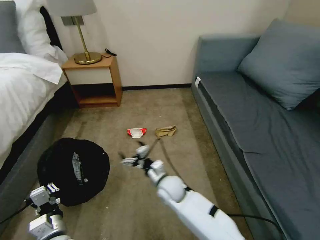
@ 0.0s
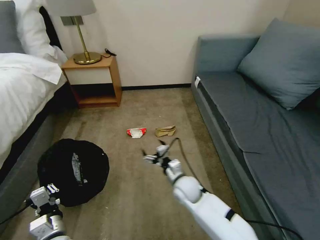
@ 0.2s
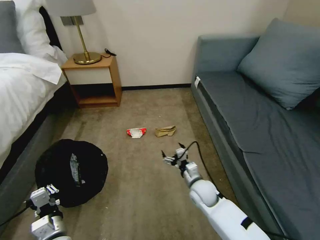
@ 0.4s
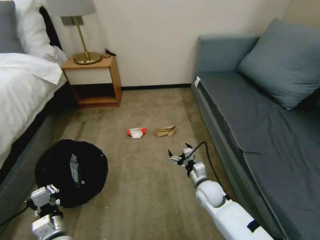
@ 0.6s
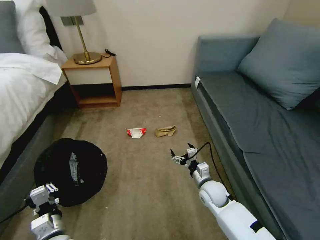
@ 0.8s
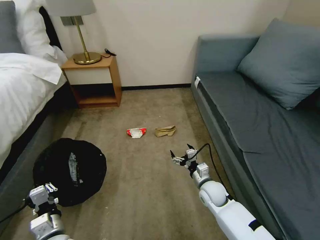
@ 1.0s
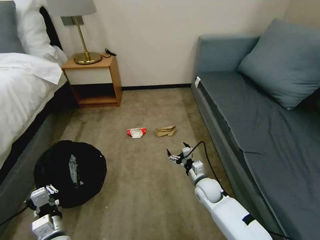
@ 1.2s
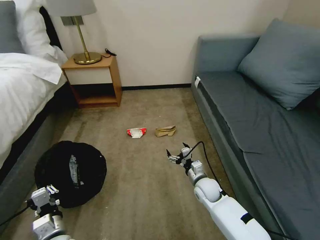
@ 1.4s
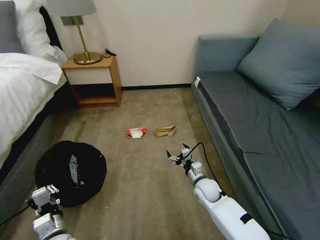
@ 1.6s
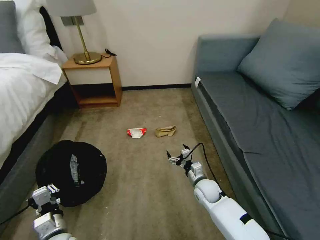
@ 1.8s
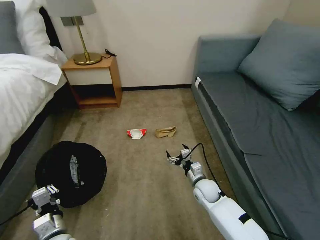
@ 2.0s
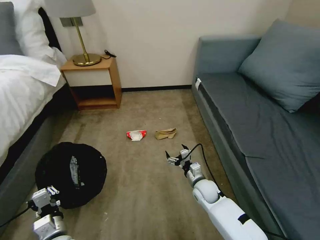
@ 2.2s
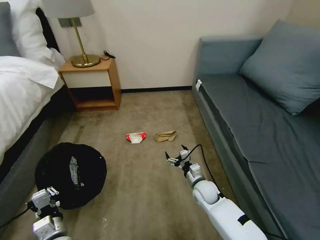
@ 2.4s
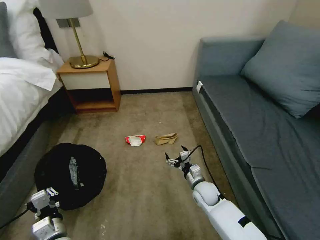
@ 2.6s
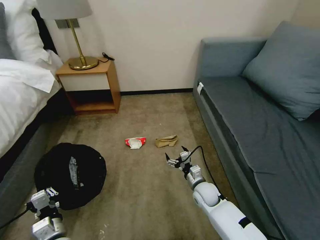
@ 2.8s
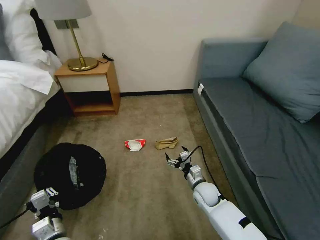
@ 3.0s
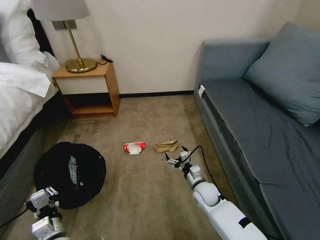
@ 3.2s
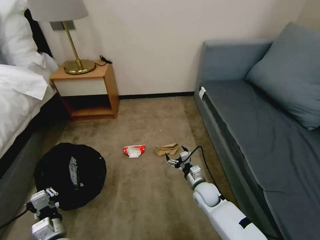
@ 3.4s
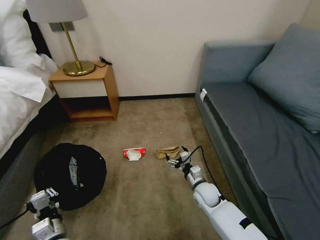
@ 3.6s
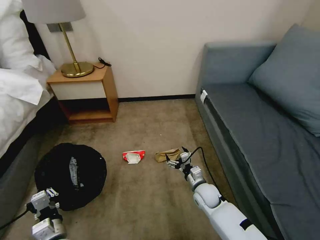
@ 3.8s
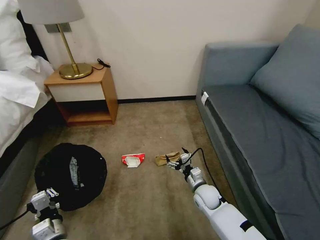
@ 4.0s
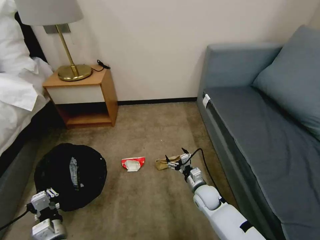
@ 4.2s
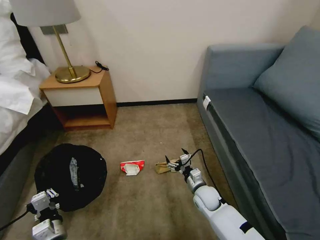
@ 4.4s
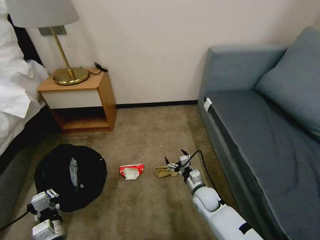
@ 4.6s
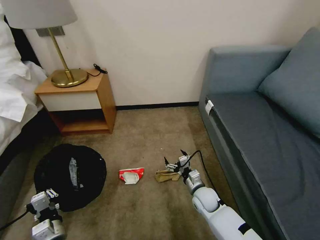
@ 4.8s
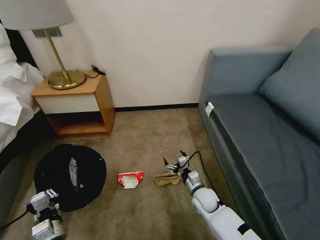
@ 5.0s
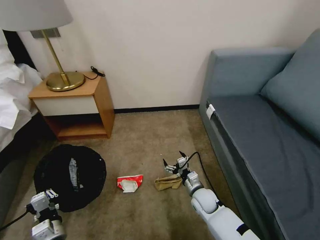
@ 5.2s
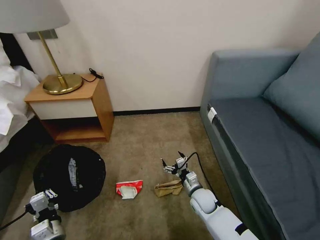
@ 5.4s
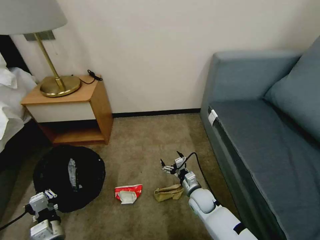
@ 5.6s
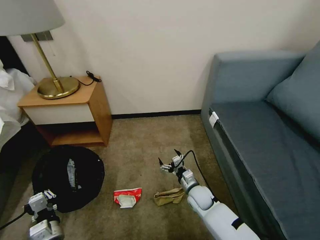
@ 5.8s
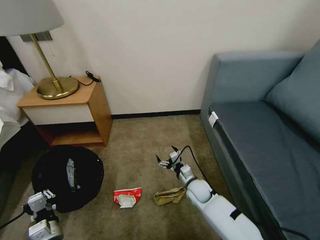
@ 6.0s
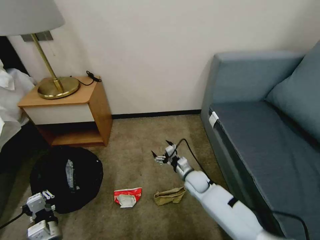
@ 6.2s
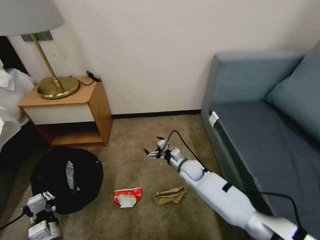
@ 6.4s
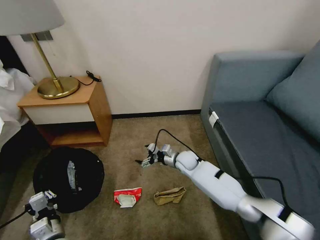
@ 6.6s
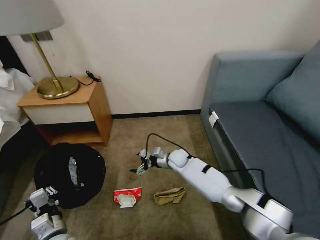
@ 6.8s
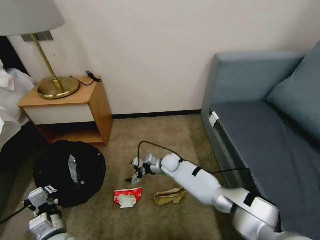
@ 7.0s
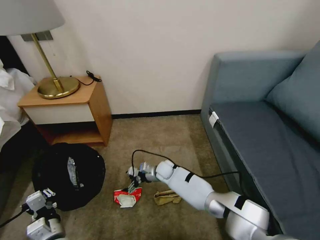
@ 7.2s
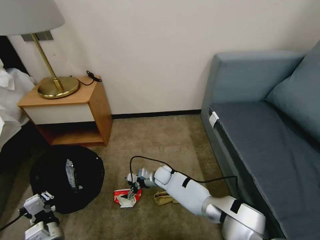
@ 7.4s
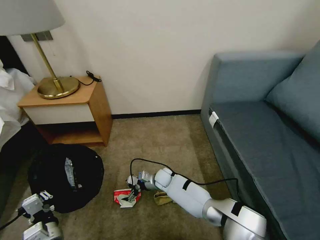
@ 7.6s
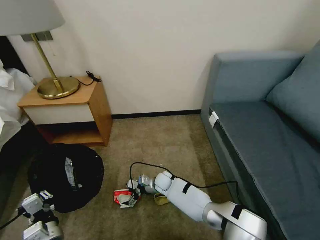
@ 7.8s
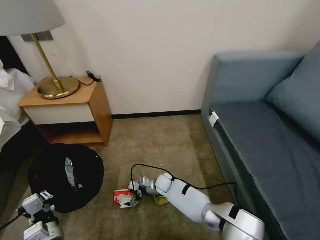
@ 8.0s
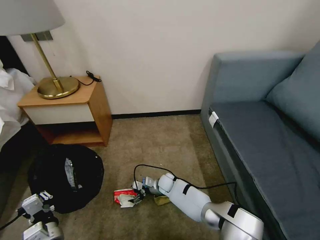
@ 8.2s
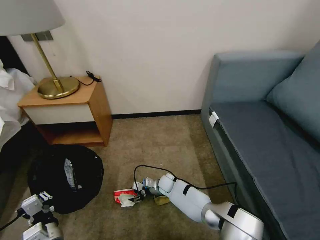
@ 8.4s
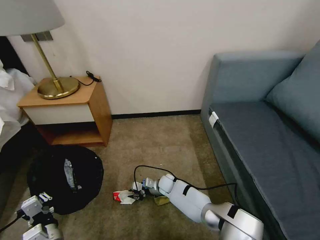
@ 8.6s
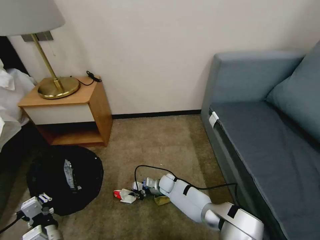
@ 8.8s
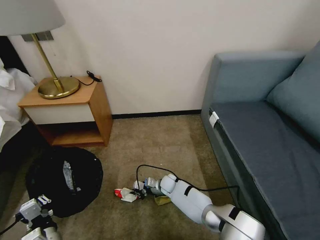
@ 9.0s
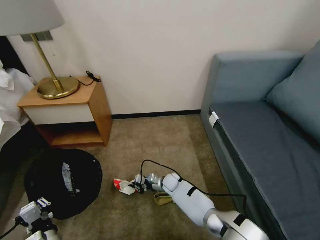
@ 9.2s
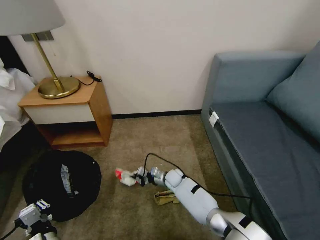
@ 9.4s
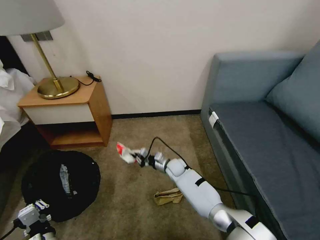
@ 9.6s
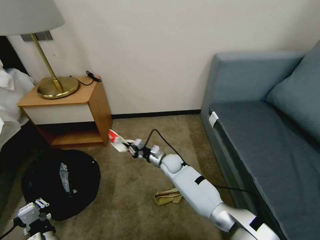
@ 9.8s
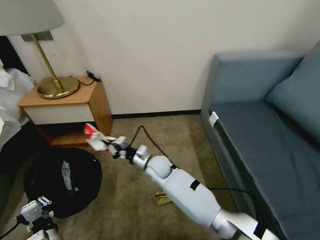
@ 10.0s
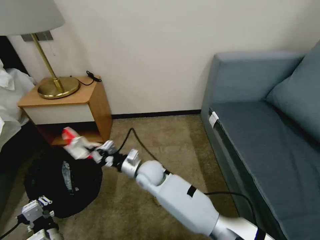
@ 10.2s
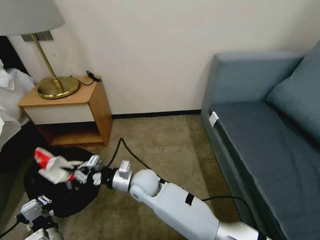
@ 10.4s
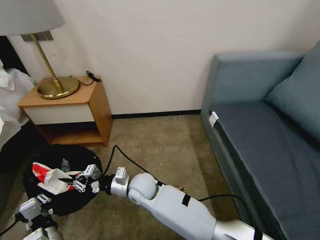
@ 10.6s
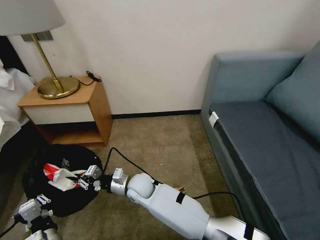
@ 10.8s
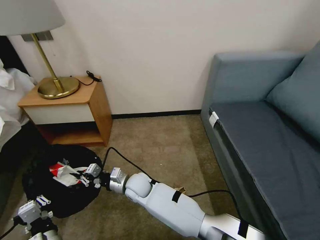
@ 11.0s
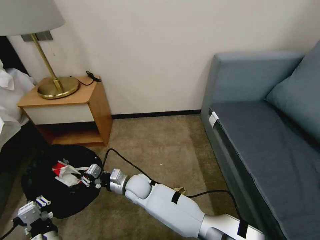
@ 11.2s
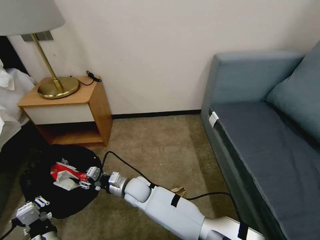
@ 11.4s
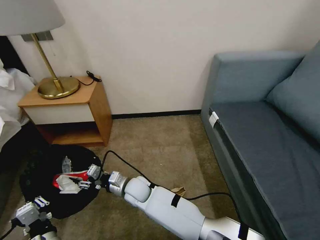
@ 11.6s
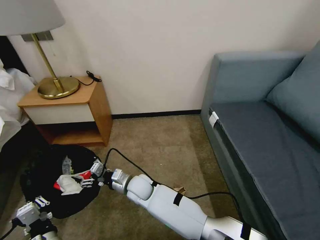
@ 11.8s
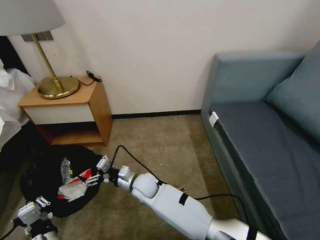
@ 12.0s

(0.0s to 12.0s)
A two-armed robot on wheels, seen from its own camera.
Task of the whole recording: Pick up the trash bin, then pick up the garbage on the floor and place it into the trash bin.
0.0s - 1.6s: The right gripper travels to the right by roughly 15 cm.
1.6s - 3.0s: The grippers make only small movements.
6.0s - 7.6s: The right gripper heads to the left and forward, covering roughly 15 cm.
7.6s - 9.0s: The right gripper changes place by some 5 cm, and closes.
9.0s - 10.4s: The right gripper shifts approximately 25 cm upward and to the left.
10.4s - 12.0s: The right gripper travels downward by about 5 cm, and opens up.

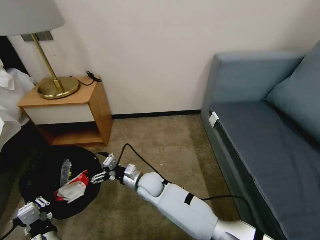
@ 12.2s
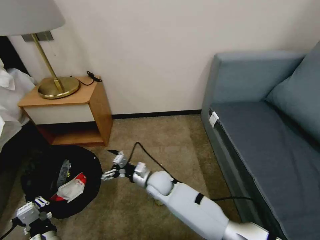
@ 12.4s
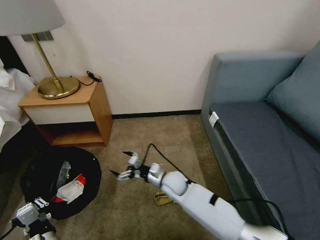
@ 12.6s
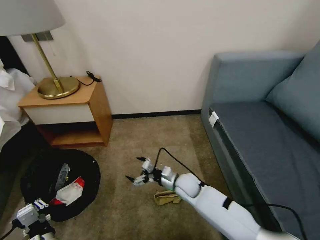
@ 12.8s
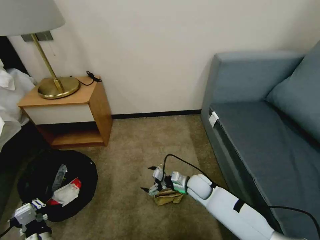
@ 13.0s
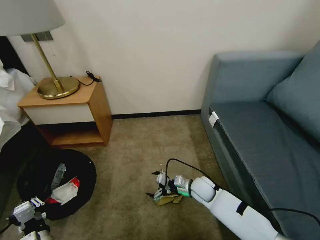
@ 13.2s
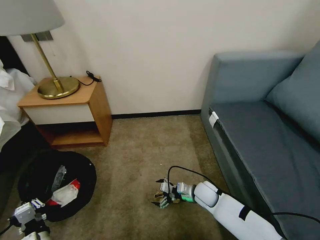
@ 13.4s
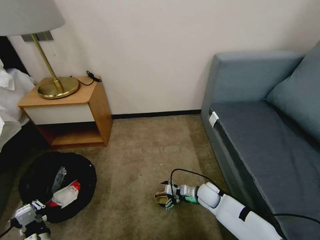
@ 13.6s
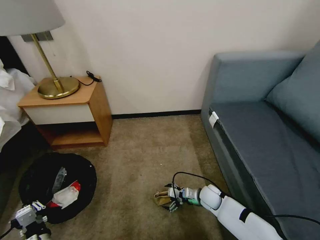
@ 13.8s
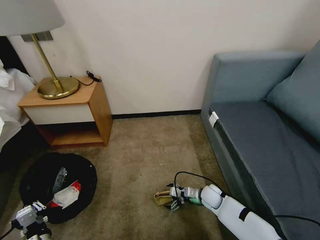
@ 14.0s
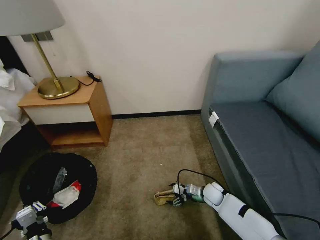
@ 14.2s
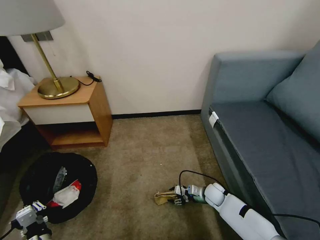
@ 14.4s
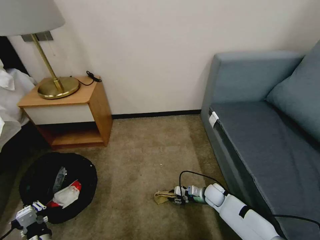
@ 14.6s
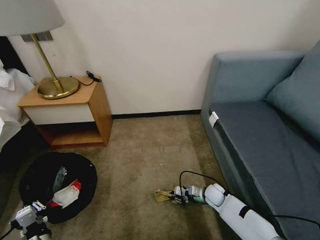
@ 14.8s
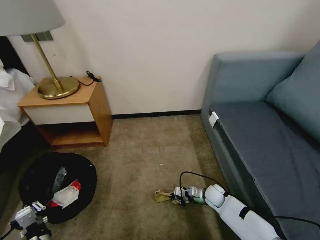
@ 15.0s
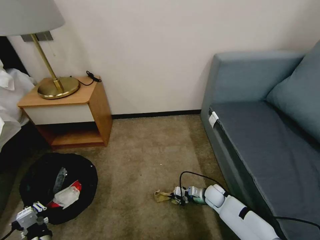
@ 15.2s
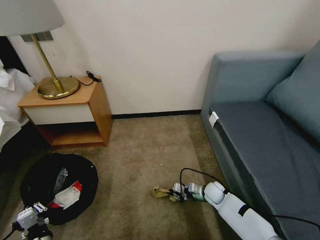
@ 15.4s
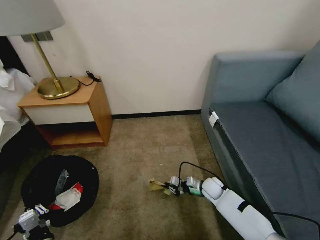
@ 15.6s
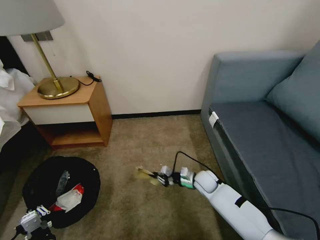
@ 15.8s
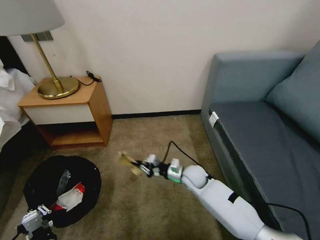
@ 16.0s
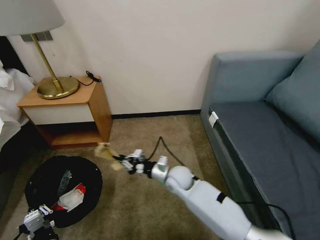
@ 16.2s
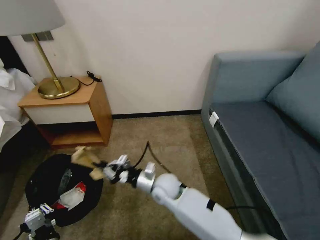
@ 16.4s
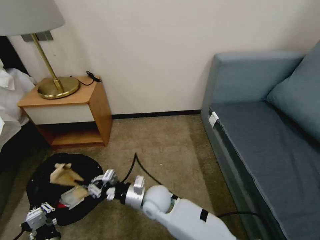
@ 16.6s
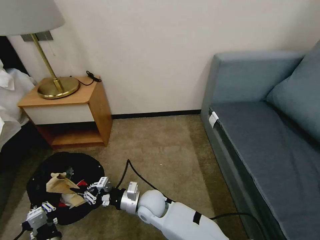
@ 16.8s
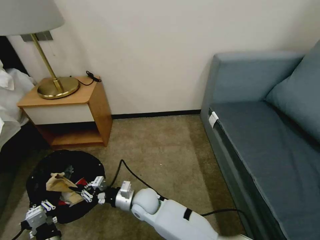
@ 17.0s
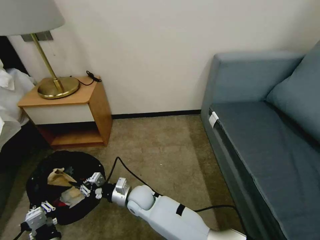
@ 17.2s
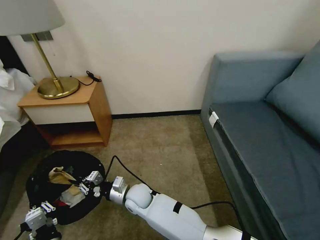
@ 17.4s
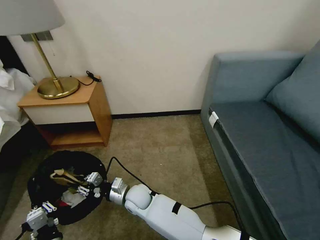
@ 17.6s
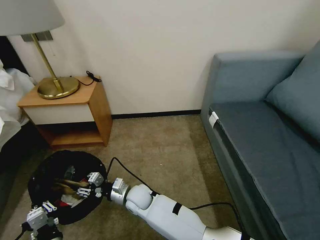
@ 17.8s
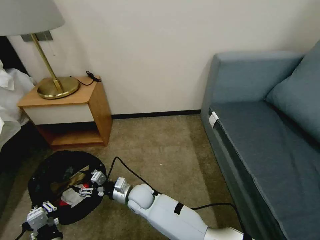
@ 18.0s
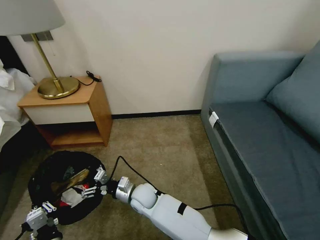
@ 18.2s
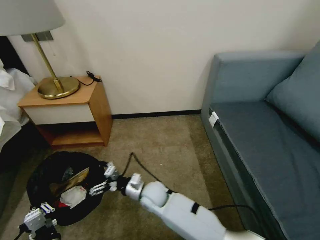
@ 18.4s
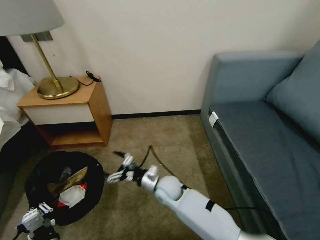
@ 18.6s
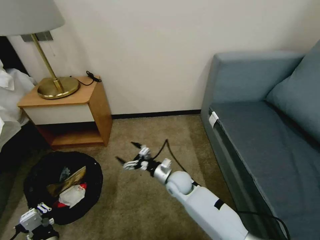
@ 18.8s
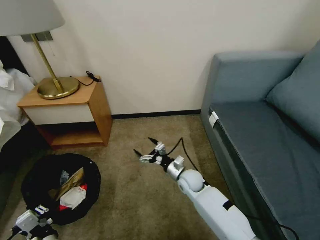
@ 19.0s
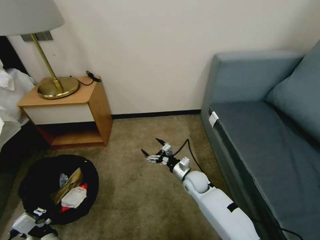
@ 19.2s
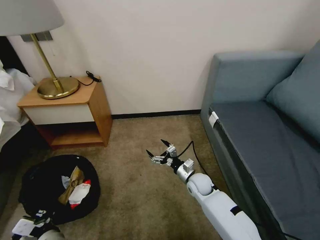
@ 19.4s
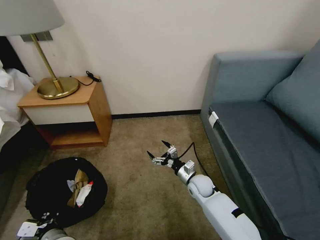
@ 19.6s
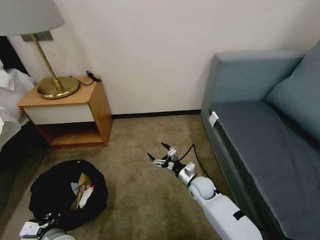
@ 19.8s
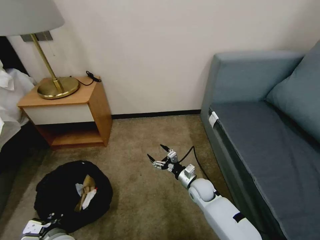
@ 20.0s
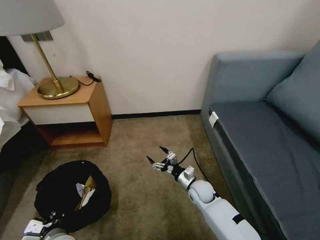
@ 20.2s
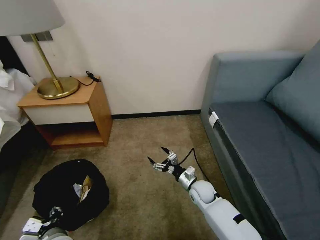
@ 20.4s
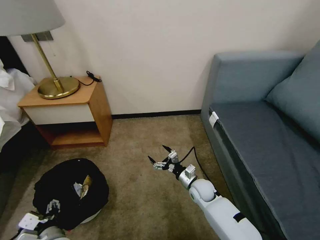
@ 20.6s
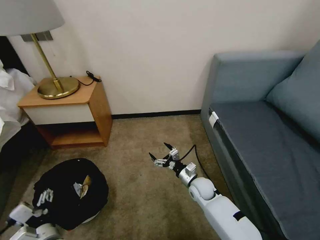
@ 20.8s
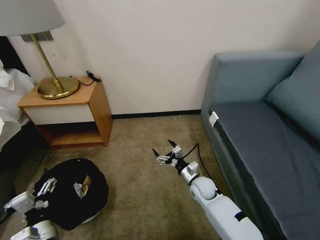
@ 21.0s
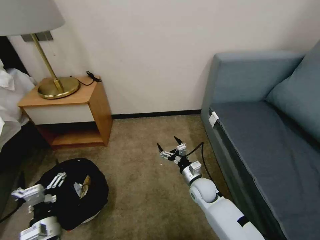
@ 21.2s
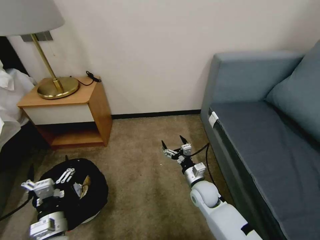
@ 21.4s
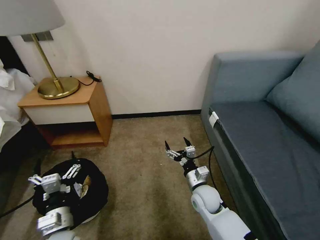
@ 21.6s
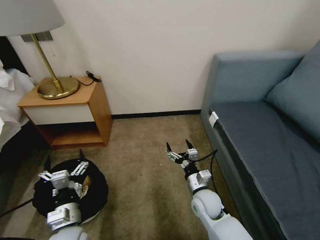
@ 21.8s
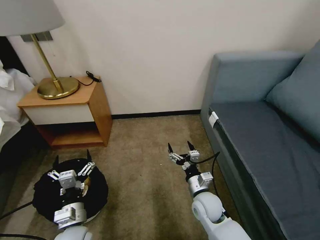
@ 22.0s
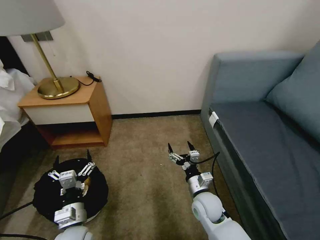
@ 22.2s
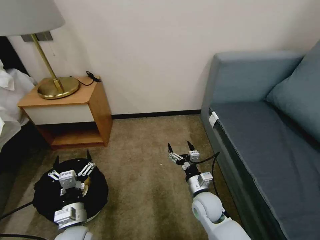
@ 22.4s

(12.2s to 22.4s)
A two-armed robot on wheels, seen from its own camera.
Task of the whole recording: Pick up the trash bin, then pick up the garbage on the floor and place it into the trash bin.
12.2s - 13.6s: The right gripper is displaced to the right by about 25 cm, while the left gripper moves some 5 cm.
13.6s - 15.2s: The right gripper moves downward and to the right, approximately 5 cm, and closes up.
15.2s - 16.6s: The right gripper goes approximately 30 cm to the left and upward.
16.6s - 18.0s: The right gripper is displaced to the left and downward by about 10 cm, and opens.
18.0s - 19.4s: The right gripper travels to the right by approximately 25 cm.
19.4s - 21.0s: The left gripper opens.
21.0s - 22.4s: The left gripper is displaced to the right by some 5 cm. The right gripper heads backward, covering about 10 cm.
